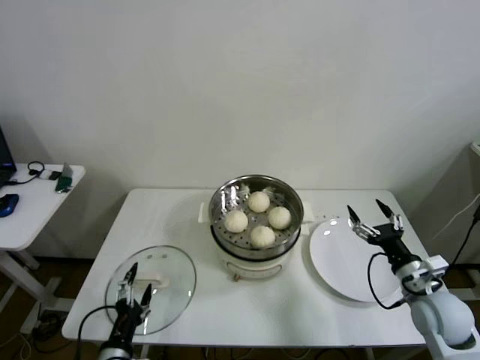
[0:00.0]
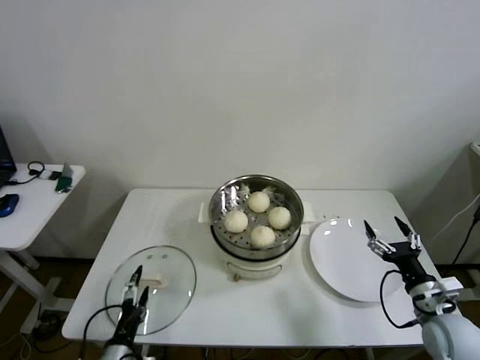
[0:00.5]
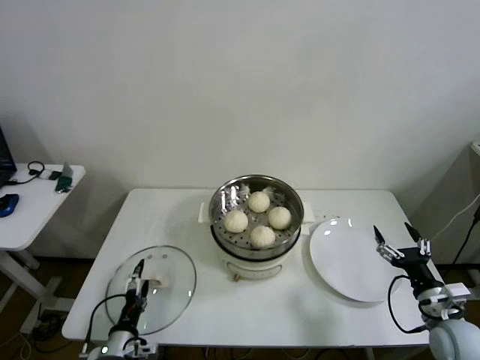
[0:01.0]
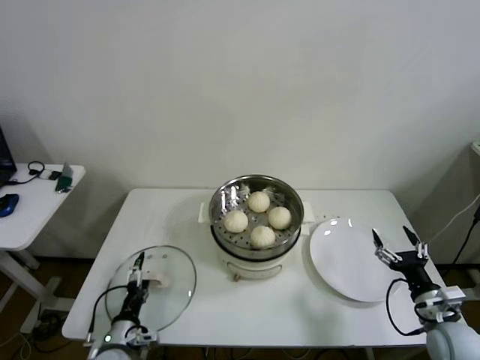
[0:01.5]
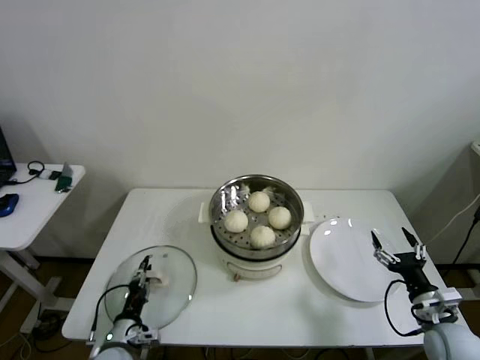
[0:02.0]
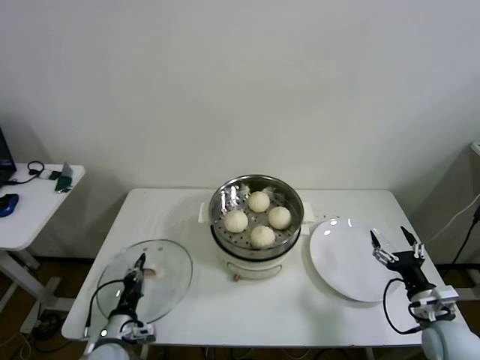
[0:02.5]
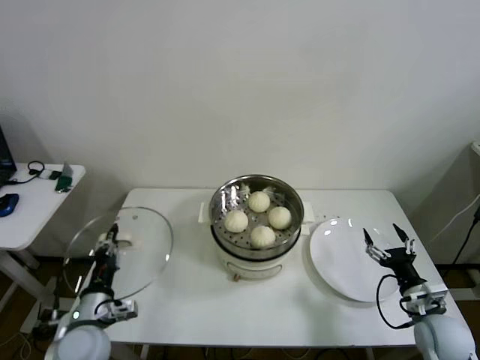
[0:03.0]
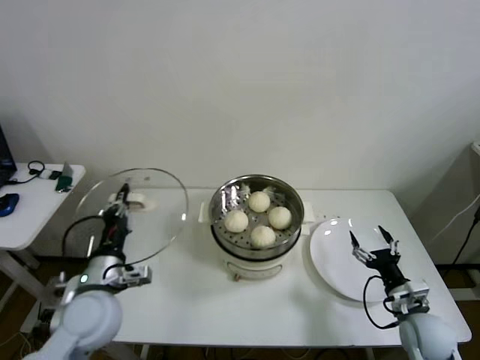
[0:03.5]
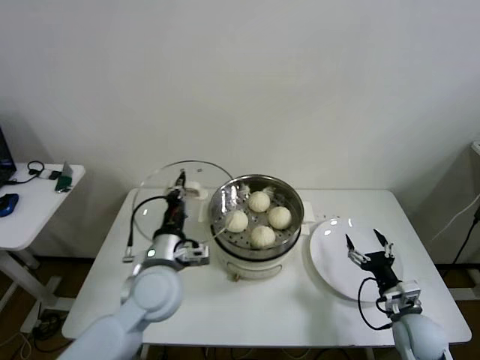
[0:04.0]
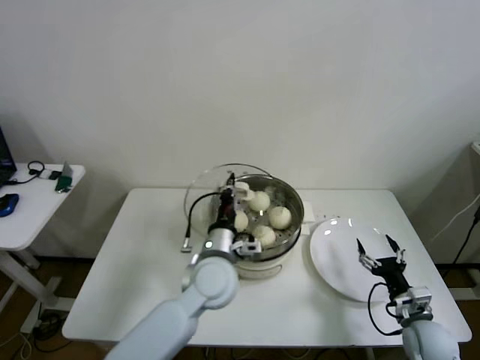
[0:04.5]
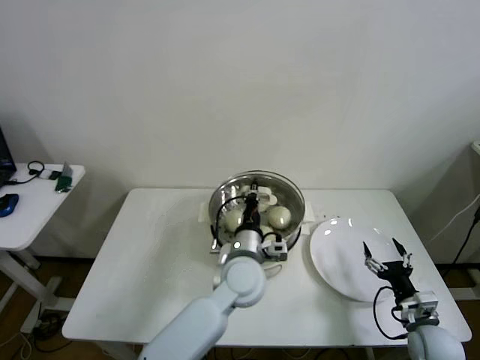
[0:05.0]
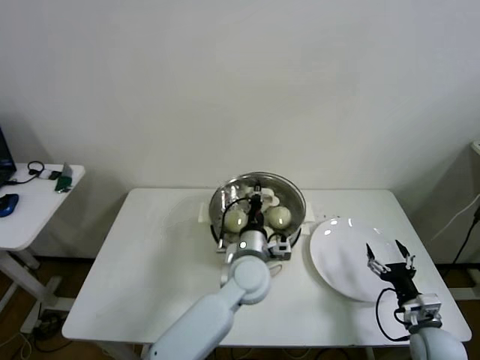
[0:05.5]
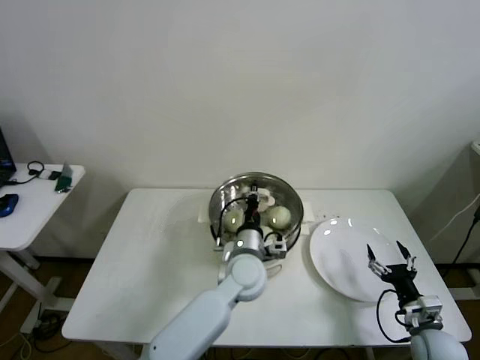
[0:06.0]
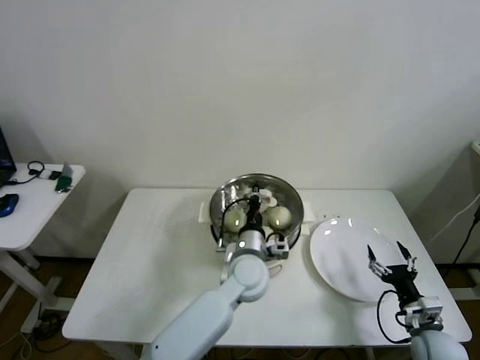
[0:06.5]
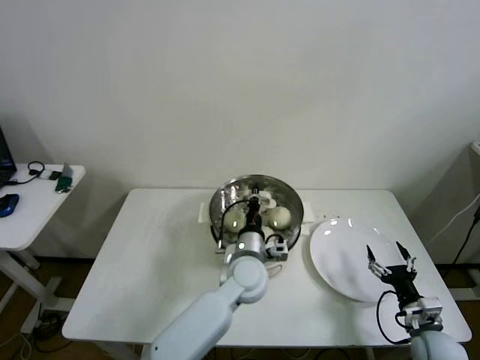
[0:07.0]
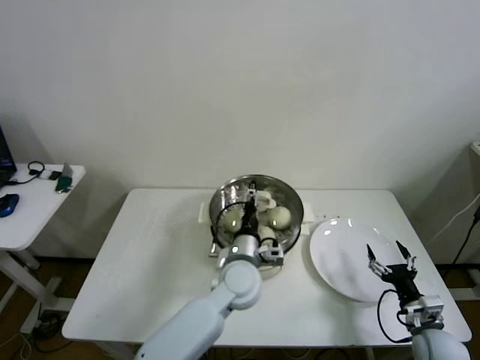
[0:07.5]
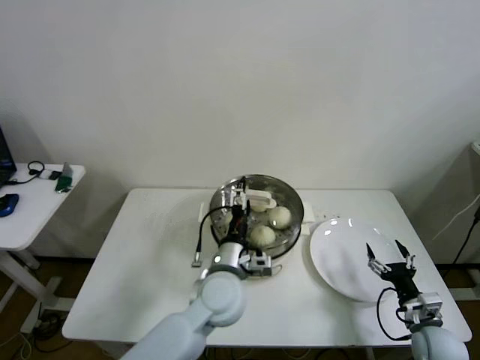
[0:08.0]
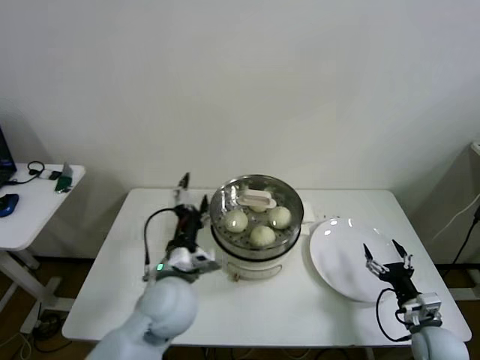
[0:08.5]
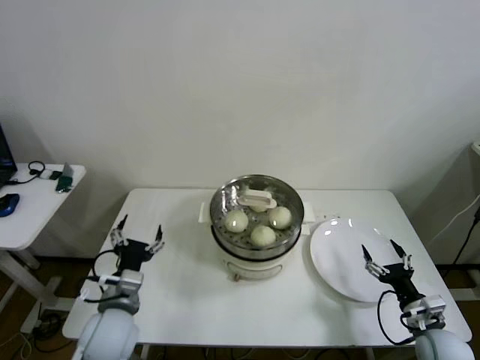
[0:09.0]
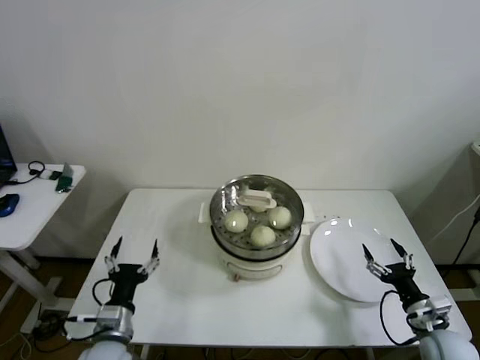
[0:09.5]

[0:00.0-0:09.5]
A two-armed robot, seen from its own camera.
Step, 0:00.0 to 0:02.0: Grasp the pot lid with left gripper.
Step, 0:02.5 to 0:07.0: Place the pot lid on the steamer with left gripper.
0:00.0 to 0:02.0: The right gripper ends up roughly 10 cm from where it was. Meanwhile the left gripper shifts approximately 10 cm downward and forward, and closes.
0:02.0 to 0:04.0: The left gripper heads upward, to the right and forward, covering some 25 cm, and closes. The right gripper changes place by roughly 5 cm.
0:04.0 to 0:05.5: The left gripper goes about 20 cm to the right.
0:05.5 to 0:07.5: The left gripper opens up.
0:07.5 to 0:09.5: The left gripper heads to the left and backward, covering approximately 30 cm, and opens.

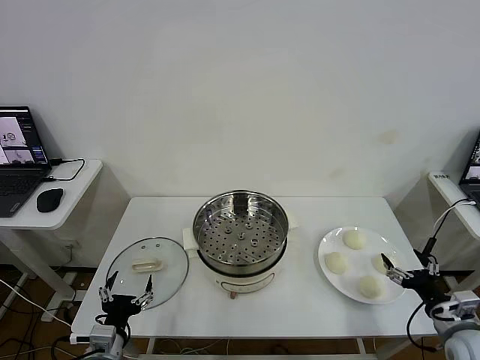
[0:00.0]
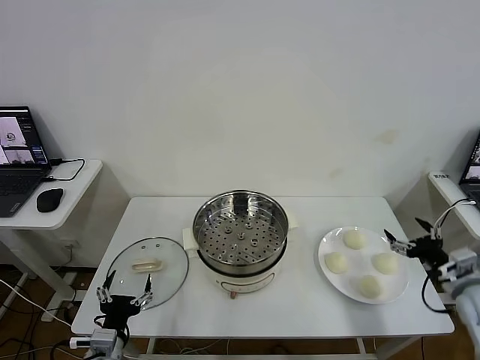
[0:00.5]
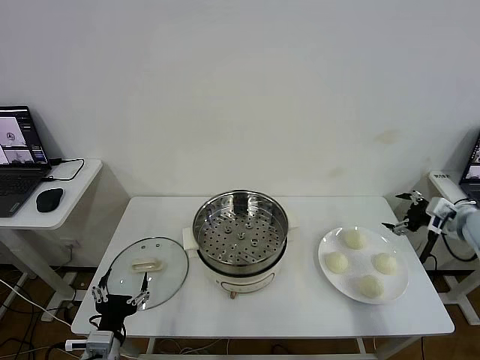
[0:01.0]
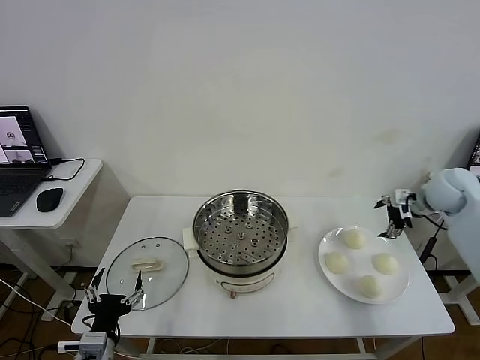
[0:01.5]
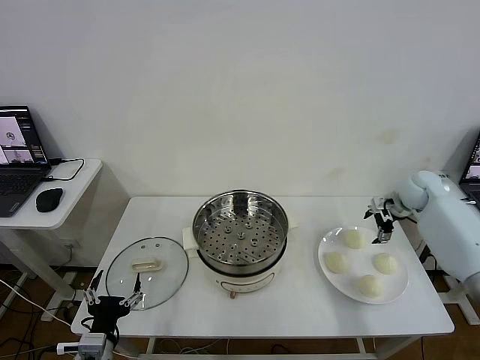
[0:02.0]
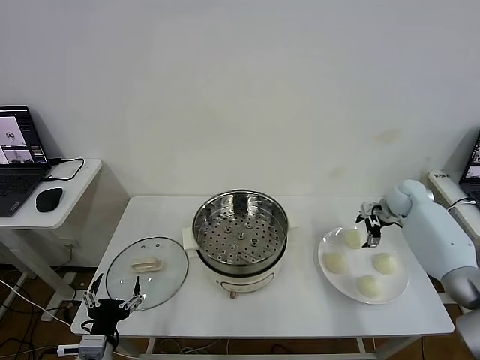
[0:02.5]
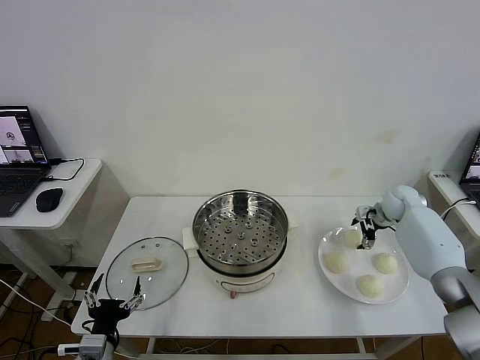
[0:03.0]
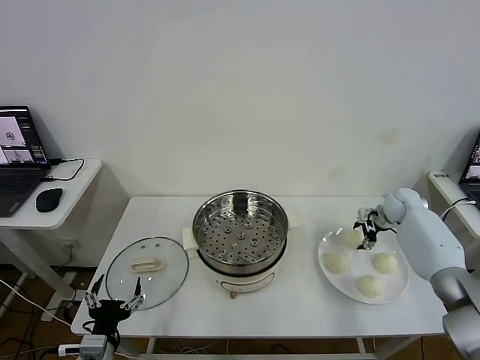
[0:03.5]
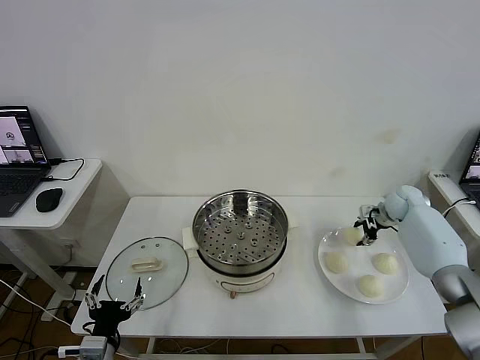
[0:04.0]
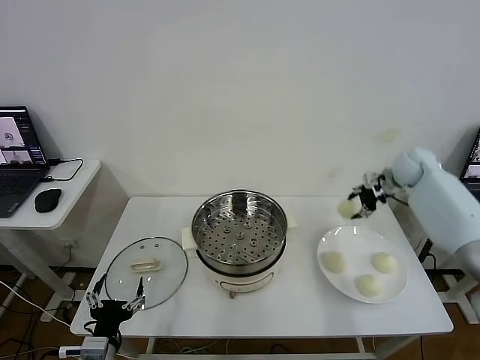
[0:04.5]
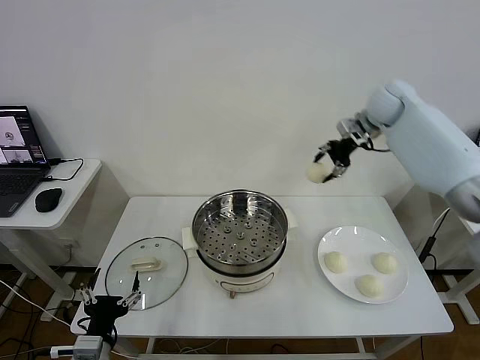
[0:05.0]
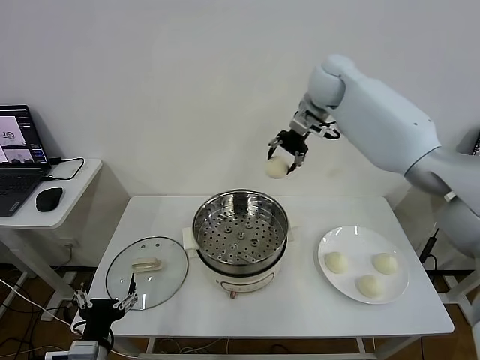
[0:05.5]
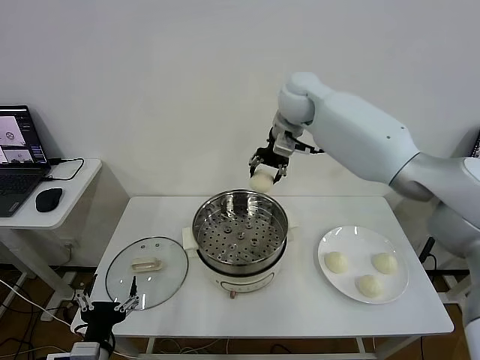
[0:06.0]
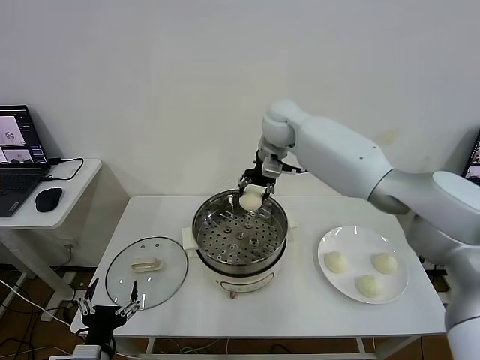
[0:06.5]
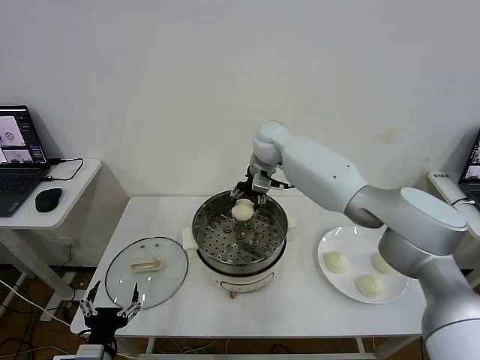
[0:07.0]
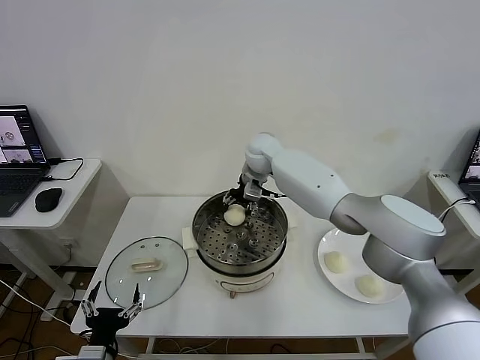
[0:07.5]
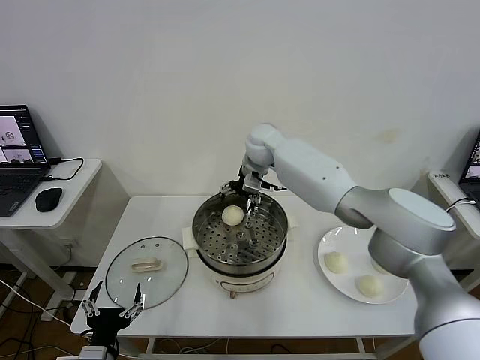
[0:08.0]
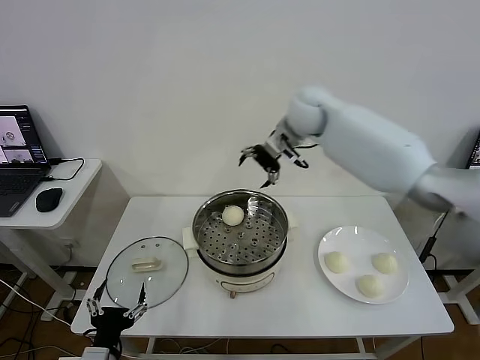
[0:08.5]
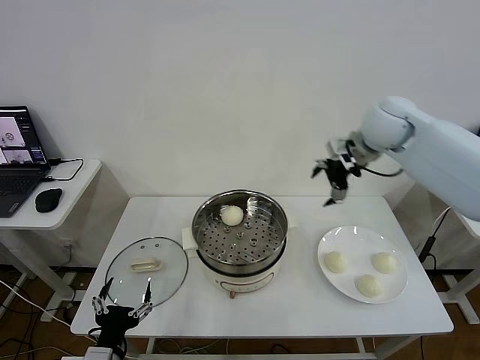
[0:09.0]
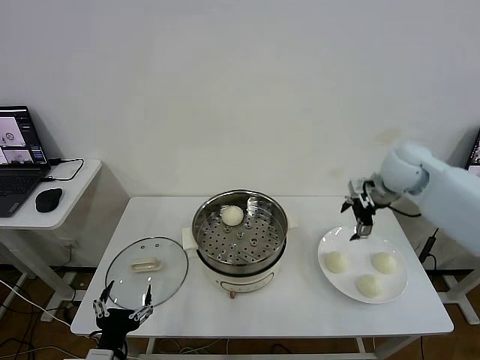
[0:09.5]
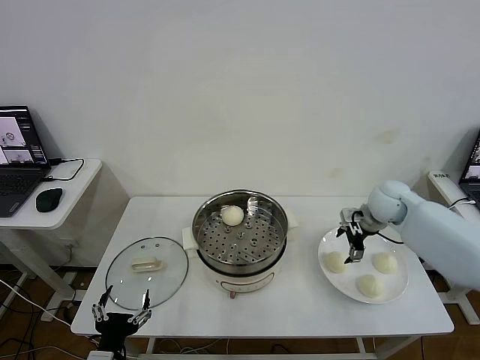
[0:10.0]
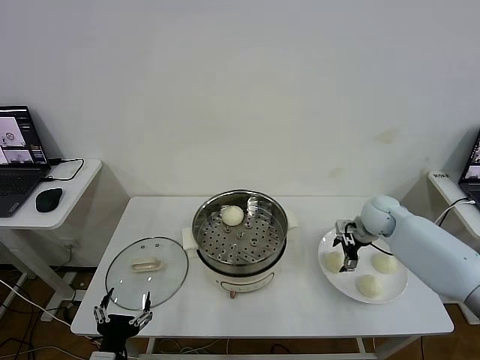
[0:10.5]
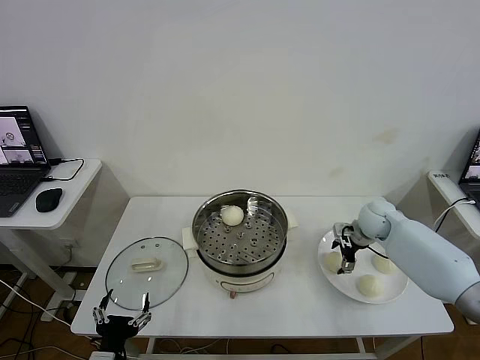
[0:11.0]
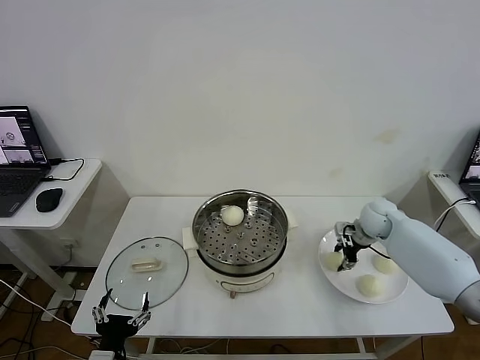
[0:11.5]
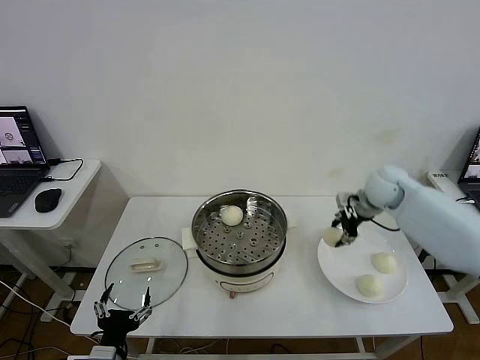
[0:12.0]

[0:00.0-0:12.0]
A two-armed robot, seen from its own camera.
Step, 0:00.0 to 0:03.5: Grasp the baozi in the plate with right gripper.
Step, 0:04.0 to 0:07.5: Place the baozi on the steamer with right gripper.
Step, 0:08.0 to 0:11.0: Grasp the baozi in the plate with right gripper.
0:02.0 to 0:04.0: The right gripper closes up.
0:04.0 to 0:06.0: The right gripper is displaced to the left and upward by roughly 40 cm.
0:06.0 to 0:08.0: The right gripper heads downward, covering roughly 10 cm, and opens.
0:08.0 to 0:10.0: The right gripper heads to the right and downward, covering some 30 cm.
0:10.0 to 0:12.0: The right gripper heads upward, covering roughly 10 cm, and closes.

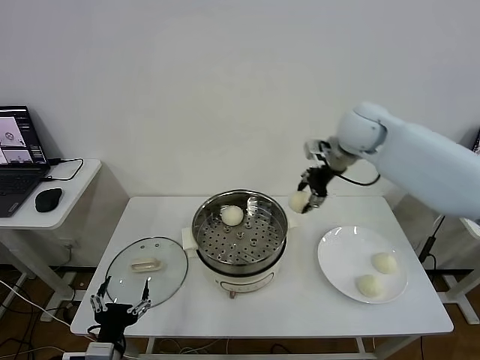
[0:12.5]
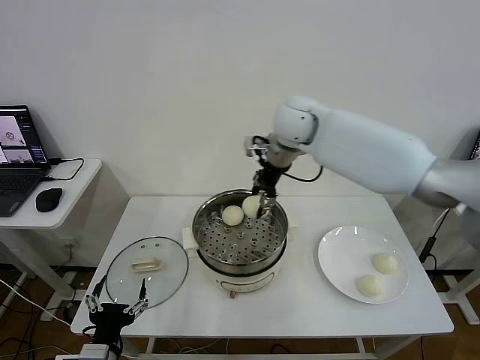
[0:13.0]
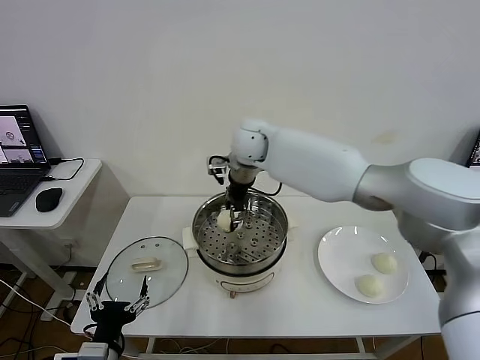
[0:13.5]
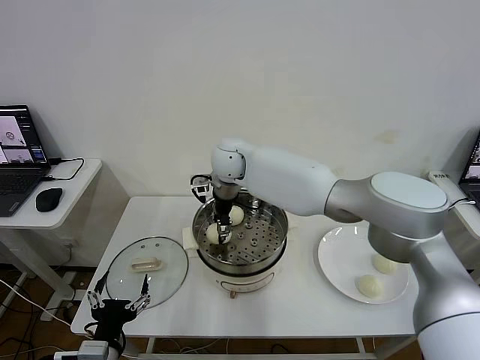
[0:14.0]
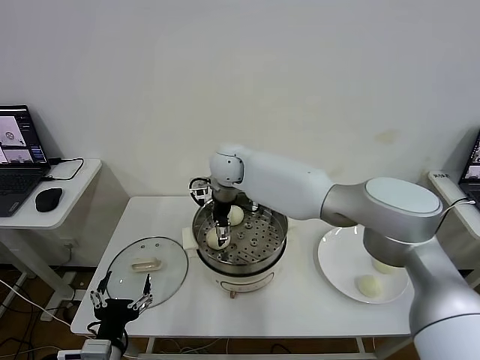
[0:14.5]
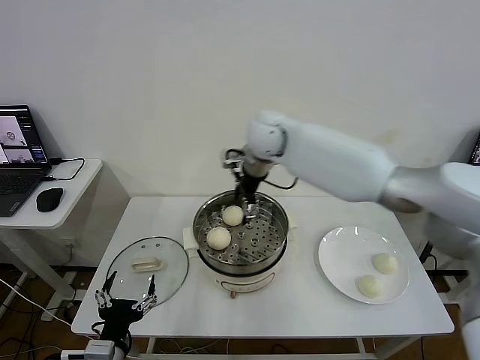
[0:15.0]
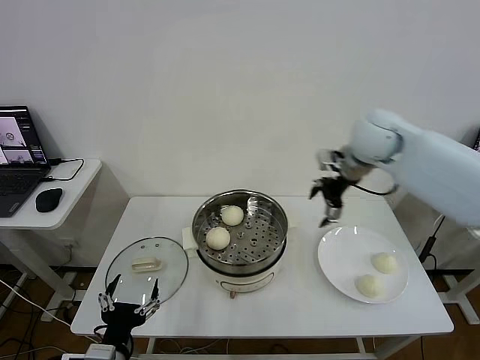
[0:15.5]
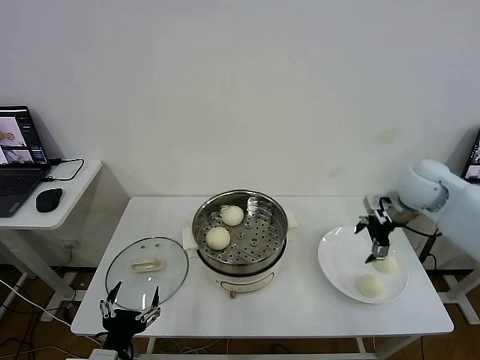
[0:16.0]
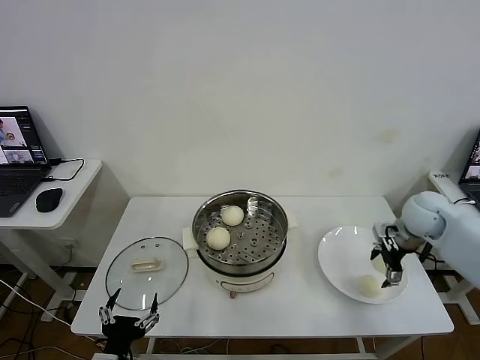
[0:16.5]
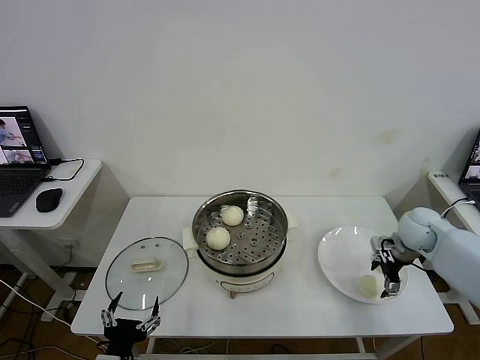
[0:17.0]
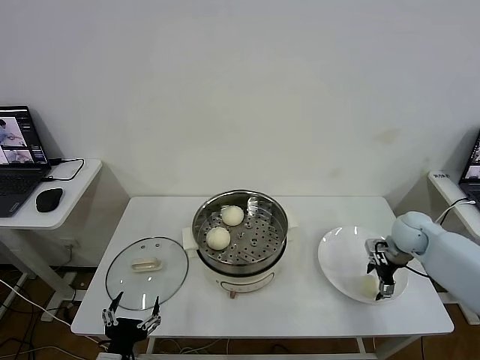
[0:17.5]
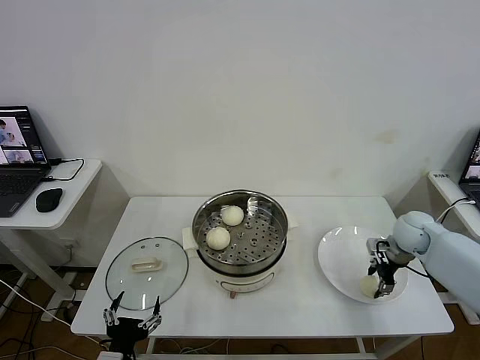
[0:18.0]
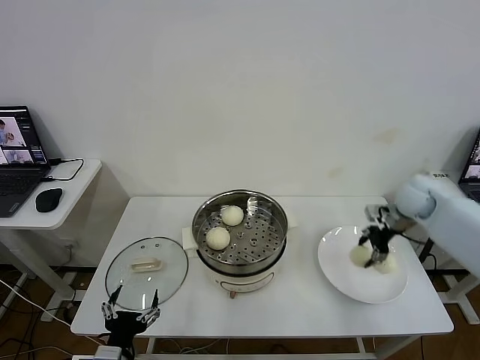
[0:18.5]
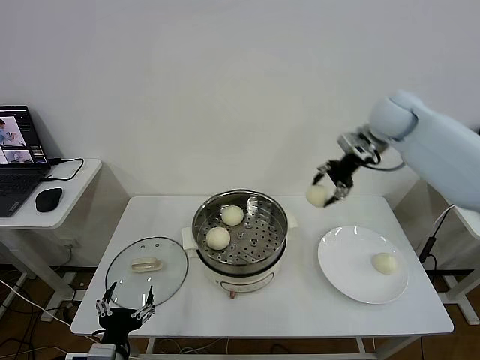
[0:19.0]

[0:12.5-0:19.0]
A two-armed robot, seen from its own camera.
Step, 0:12.5 to 0:14.0: Place the baozi on the steamer with right gripper.
Step, 0:14.5 to 0:17.5: Grasp the baozi in the plate with right gripper.
0:12.5 to 0:14.5: The right gripper travels to the left and downward by about 25 cm, and opens.
0:14.5 to 0:17.0: The right gripper heads to the right, covering roughly 40 cm.
0:17.0 to 0:19.0: The right gripper moves upward, to the left and forward, some 30 cm, and closes up.
